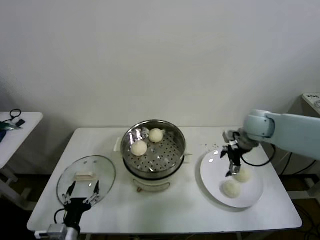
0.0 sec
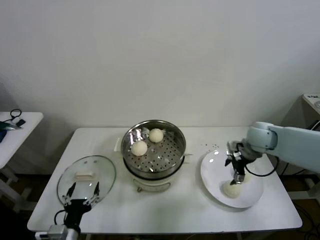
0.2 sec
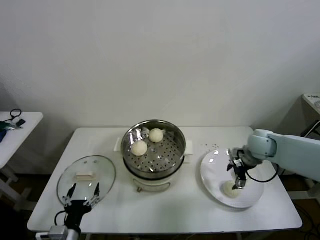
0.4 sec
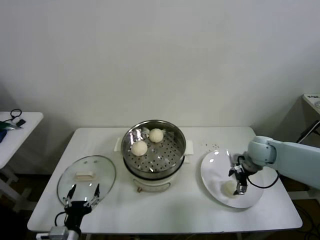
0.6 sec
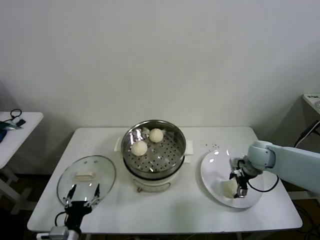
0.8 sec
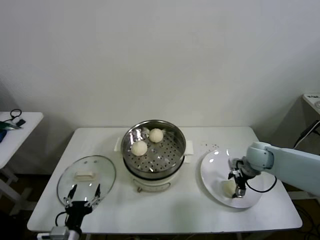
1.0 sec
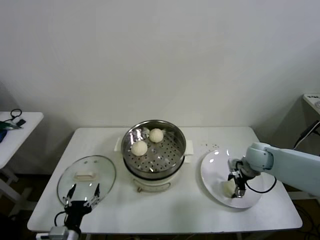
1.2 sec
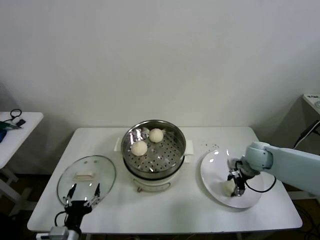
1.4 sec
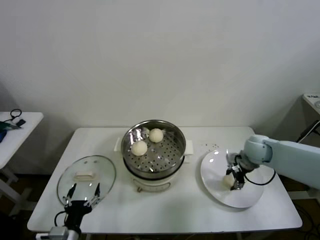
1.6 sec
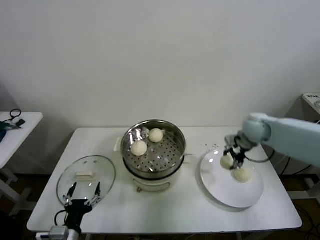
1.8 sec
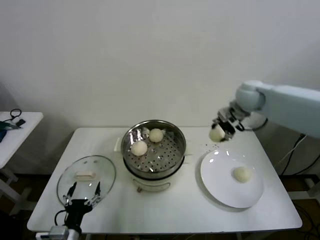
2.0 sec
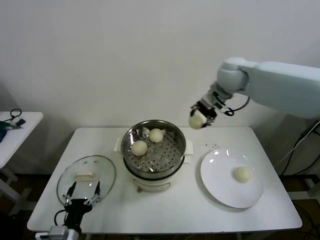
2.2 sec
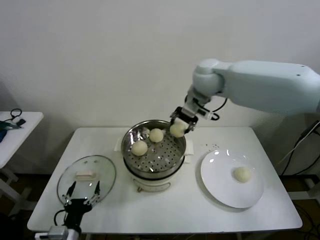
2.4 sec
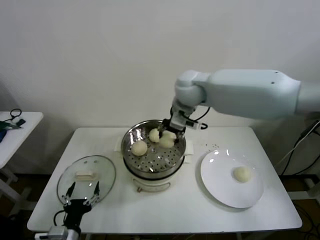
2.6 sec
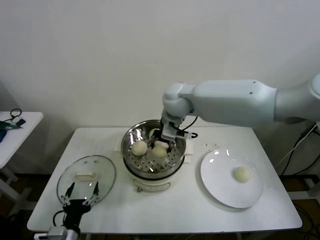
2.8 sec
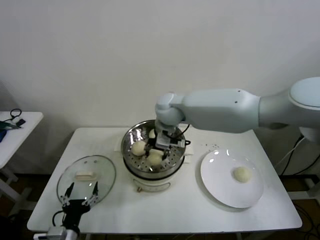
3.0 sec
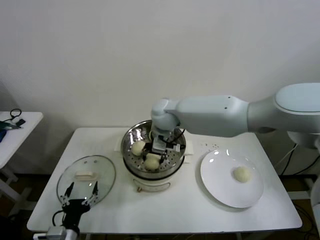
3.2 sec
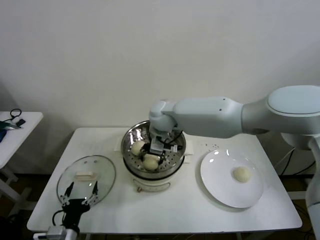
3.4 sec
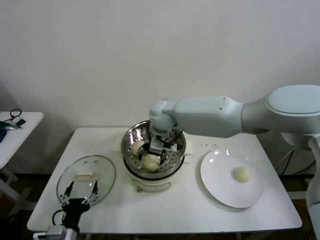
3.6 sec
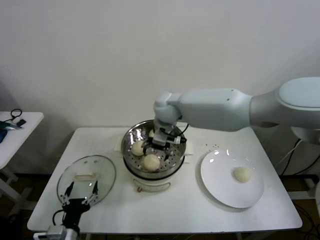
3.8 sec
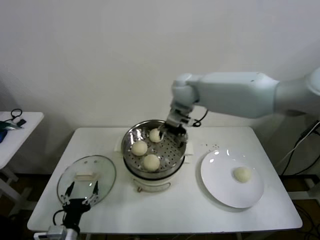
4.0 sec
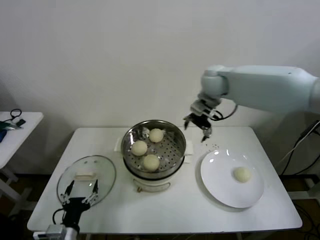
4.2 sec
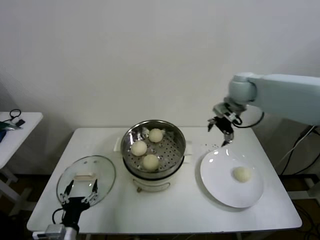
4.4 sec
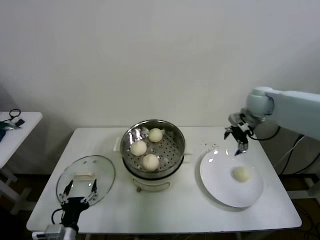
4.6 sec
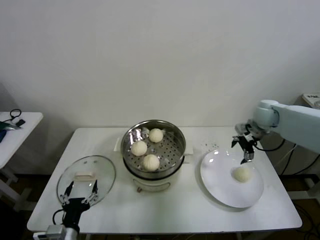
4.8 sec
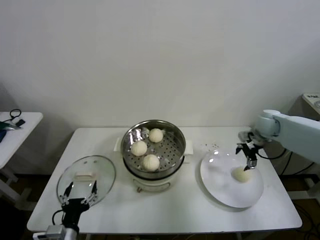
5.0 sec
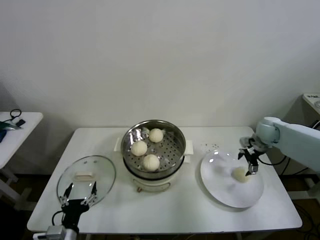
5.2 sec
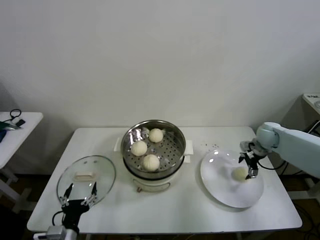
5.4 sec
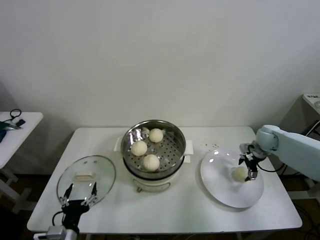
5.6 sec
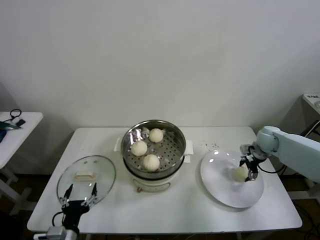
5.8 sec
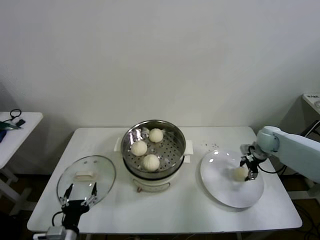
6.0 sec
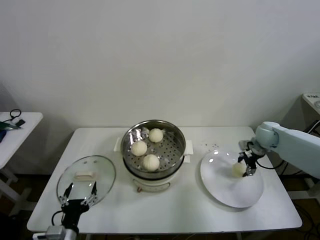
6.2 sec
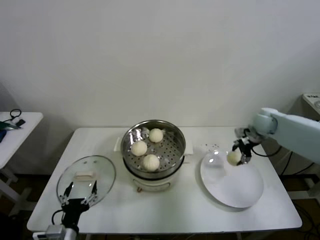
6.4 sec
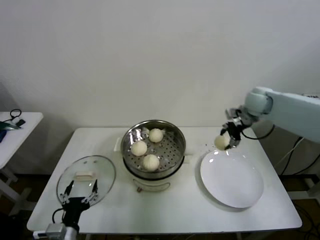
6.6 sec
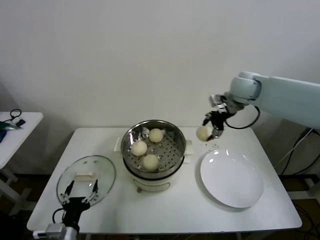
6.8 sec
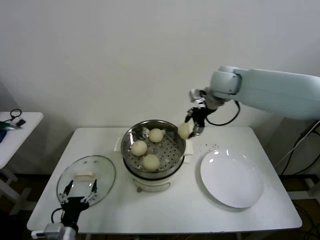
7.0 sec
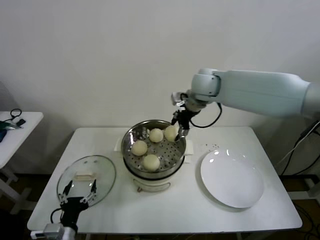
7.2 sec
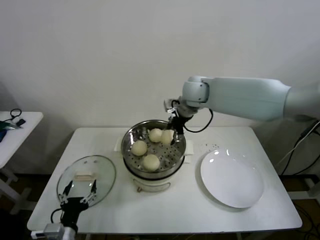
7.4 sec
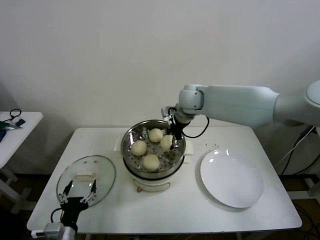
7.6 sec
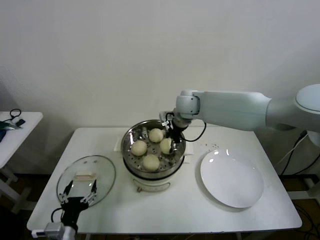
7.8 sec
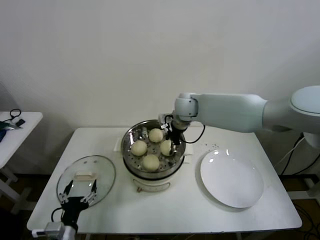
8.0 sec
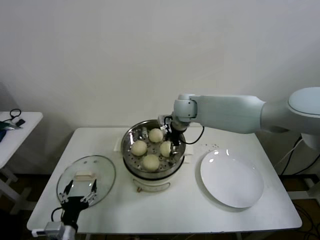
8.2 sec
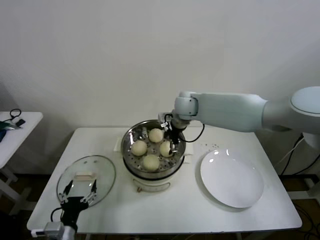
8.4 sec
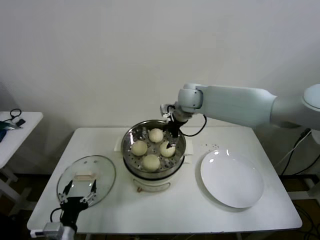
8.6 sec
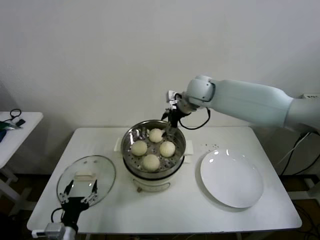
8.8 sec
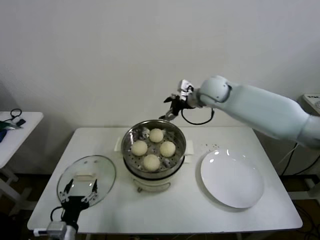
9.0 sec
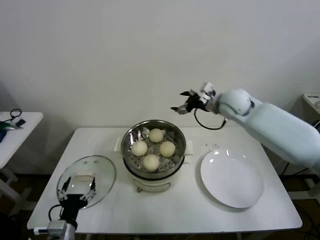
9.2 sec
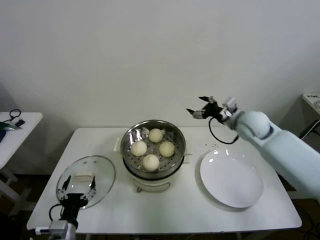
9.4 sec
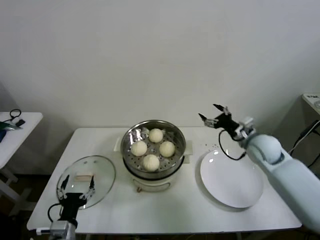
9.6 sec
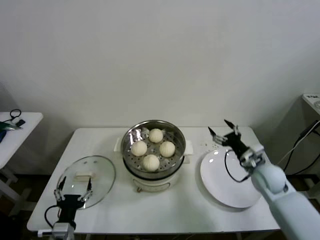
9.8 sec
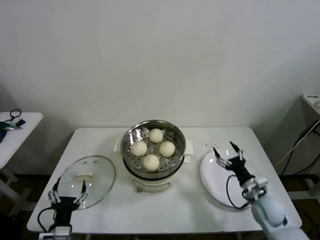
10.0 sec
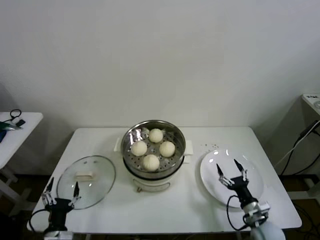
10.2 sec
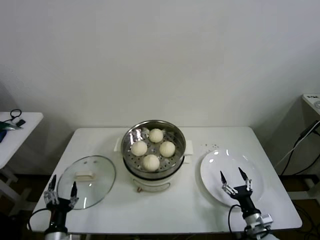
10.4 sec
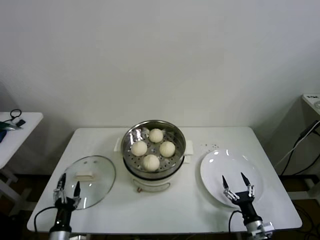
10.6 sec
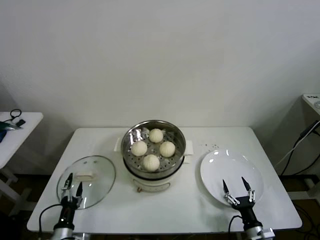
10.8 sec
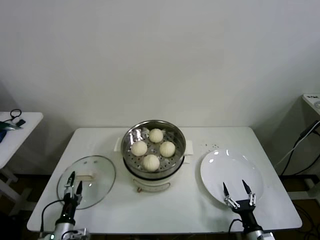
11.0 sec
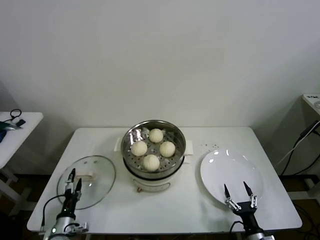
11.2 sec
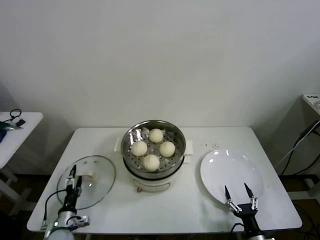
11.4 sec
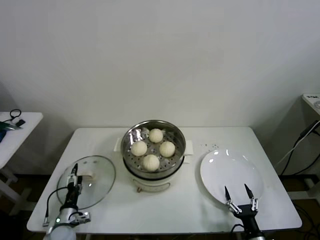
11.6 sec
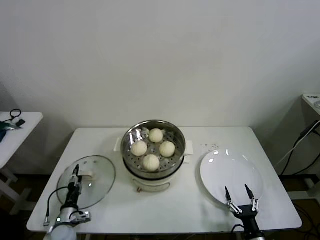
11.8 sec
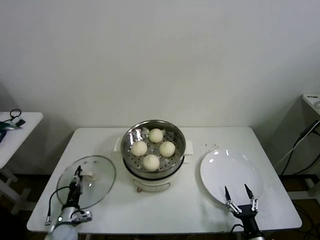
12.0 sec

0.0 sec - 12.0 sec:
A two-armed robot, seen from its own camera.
Step, 0.0 sec - 1.2 sec: Grasp the baozi in the plate with right gripper.
Step, 1.4 sec - 3.6 sec: Place the baozi on the steamer with right gripper.
Step, 3.8 sec - 6.0 sec: Grasp the baozi in the plate with right gripper.
Step, 6.2 sec - 8.2 sec: Place the baozi on the steamer with right gripper.
0.0 sec - 1.6 sec: The right gripper heads downward, covering about 5 cm, and closes up.
1.6 sec - 3.0 sec: The right gripper travels to the left by roughly 30 cm.
3.0 sec - 4.4 sec: The right gripper shifts roughly 25 cm to the right, and opens up.
4.4 sec - 6.0 sec: The right gripper moves downward and to the right, roughly 25 cm, and closes.
6.0 sec - 7.6 sec: The right gripper shifts about 35 cm to the left and upward.
7.6 sec - 9.0 sec: The right gripper shifts about 10 cm to the right, and opens its fingers.
9.0 sec - 10.4 sec: The left gripper moves downward, about 5 cm; the right gripper shifts about 50 cm downward, backward and to the right.
10.4 sec - 12.0 sec: The right gripper travels backward by some 5 cm; the left gripper shifts some 15 cm forward and downward, and closes.

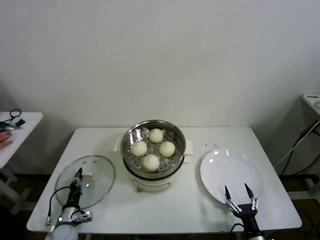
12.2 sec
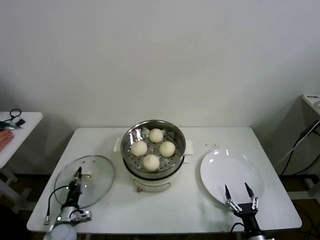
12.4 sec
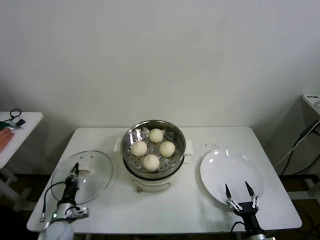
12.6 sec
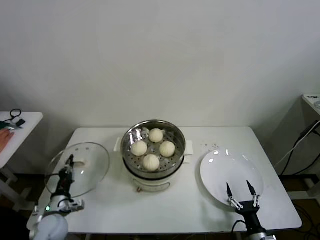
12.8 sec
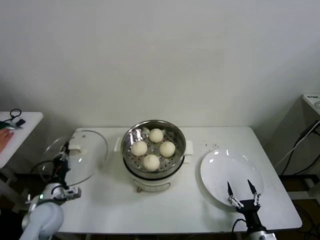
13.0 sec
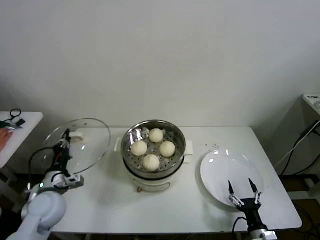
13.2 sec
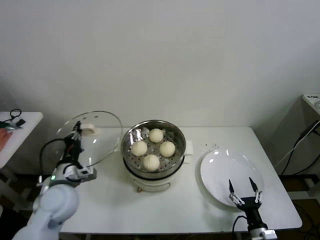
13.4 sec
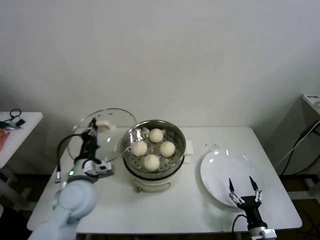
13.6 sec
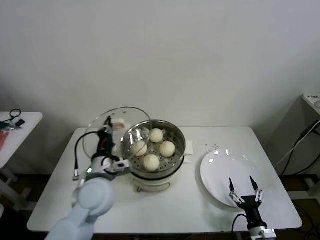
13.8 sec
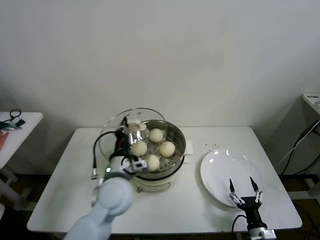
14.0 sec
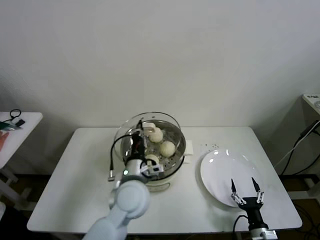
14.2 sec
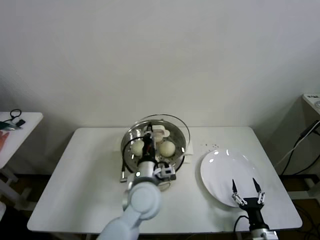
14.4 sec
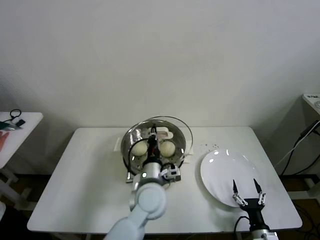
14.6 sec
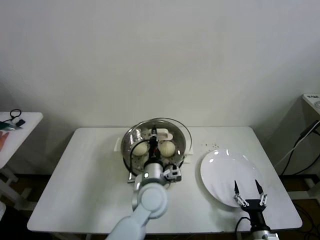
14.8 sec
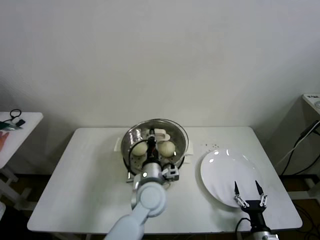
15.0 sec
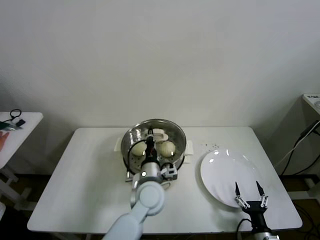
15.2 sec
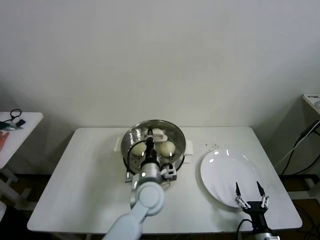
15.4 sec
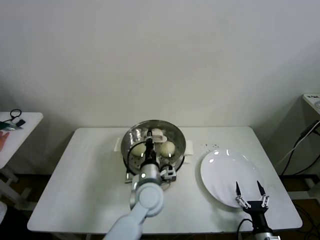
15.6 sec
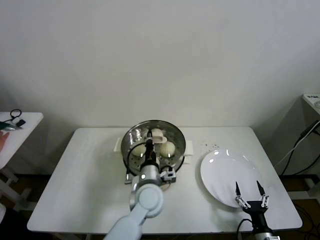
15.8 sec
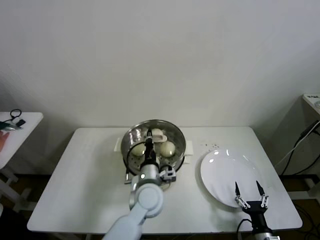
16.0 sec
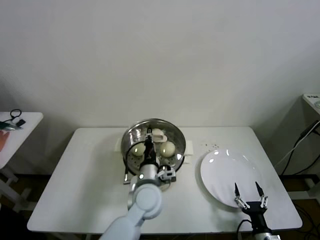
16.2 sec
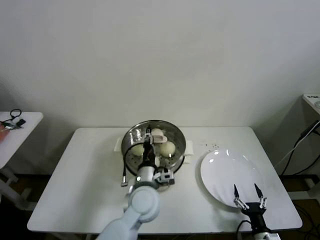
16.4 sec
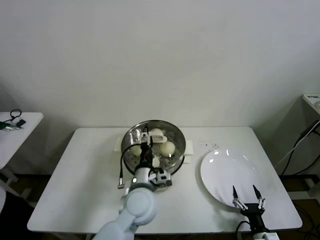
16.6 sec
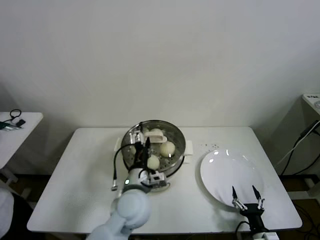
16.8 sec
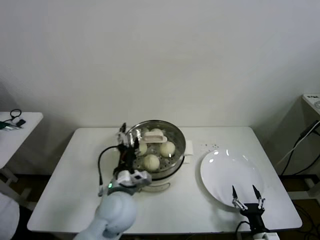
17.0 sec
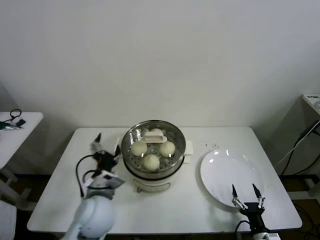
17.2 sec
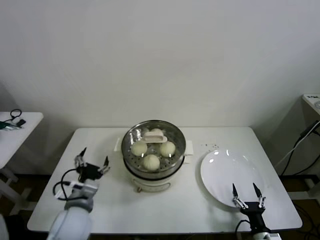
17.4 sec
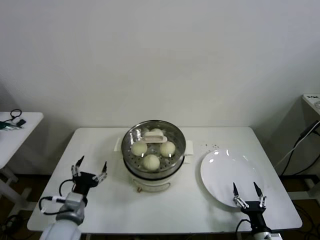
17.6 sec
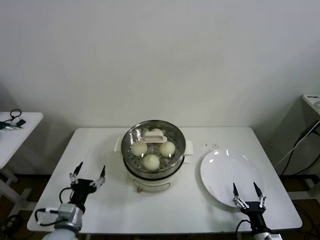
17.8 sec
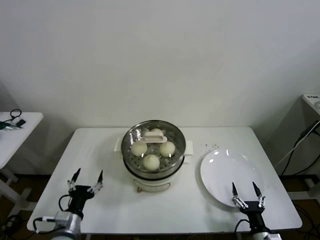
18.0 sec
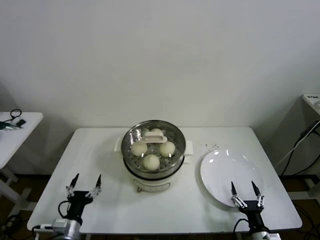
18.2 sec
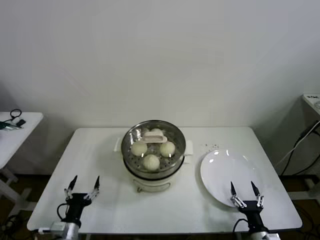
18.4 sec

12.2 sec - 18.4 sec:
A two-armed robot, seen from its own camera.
Step, 12.4 sec - 16.4 sec: Place the pot lid on the steamer with left gripper.
12.2 sec - 13.8 sec: The left gripper goes about 35 cm upward and to the right.
13.8 sec - 15.4 sec: The left gripper goes some 15 cm to the right and downward.
15.4 sec - 16.8 sec: The left gripper shifts by some 5 cm, and opens.
16.8 sec - 18.4 sec: The left gripper is displaced to the left, downward and backward by roughly 30 cm.
